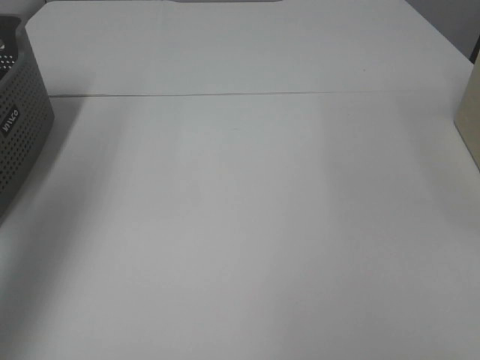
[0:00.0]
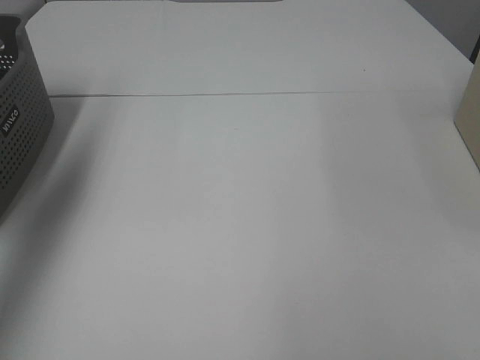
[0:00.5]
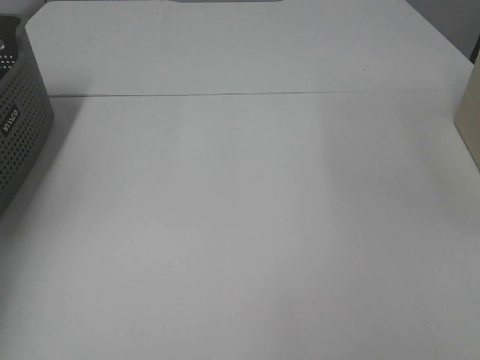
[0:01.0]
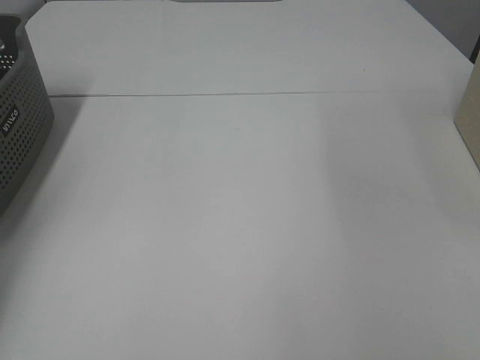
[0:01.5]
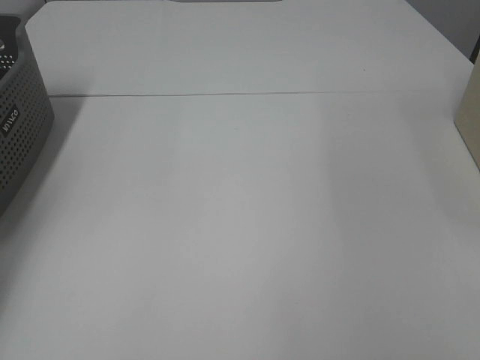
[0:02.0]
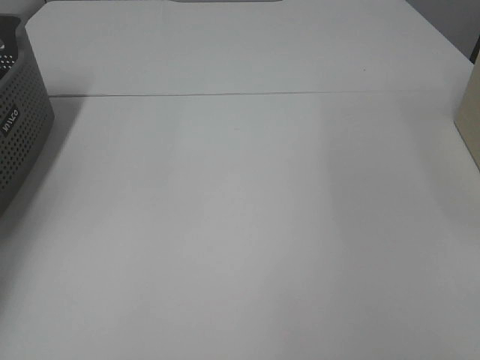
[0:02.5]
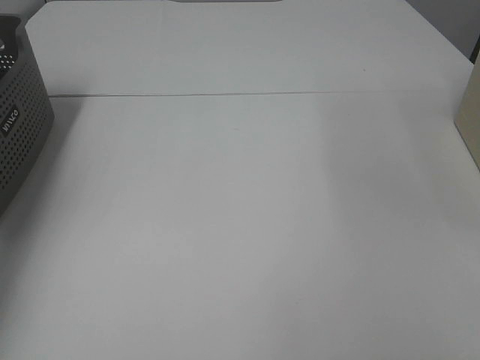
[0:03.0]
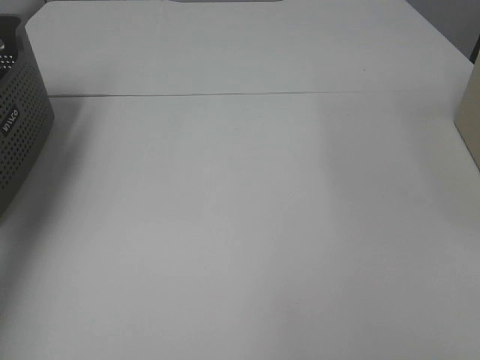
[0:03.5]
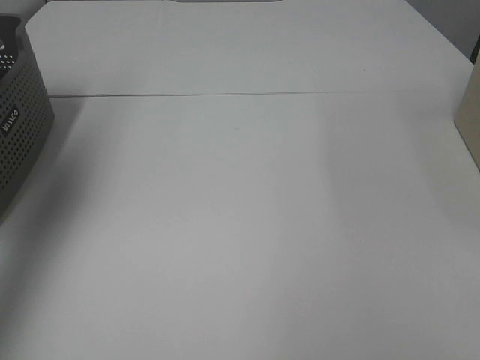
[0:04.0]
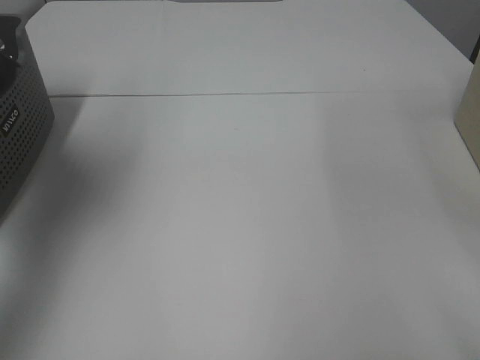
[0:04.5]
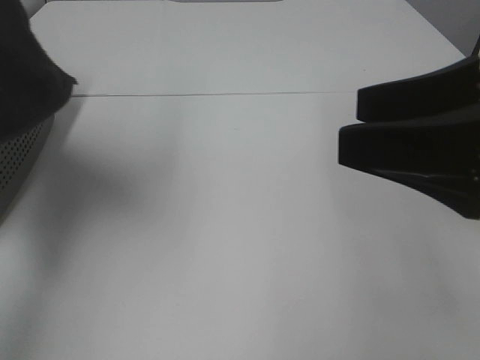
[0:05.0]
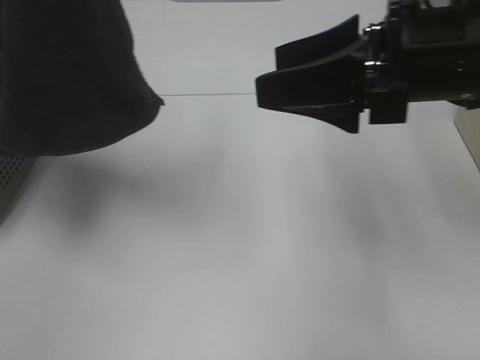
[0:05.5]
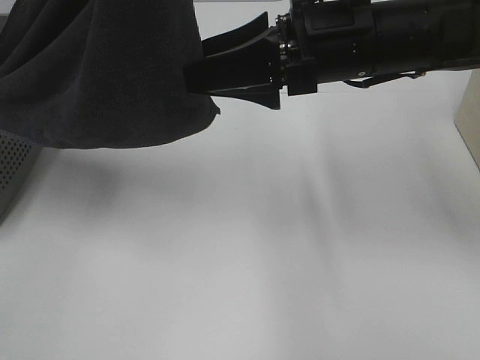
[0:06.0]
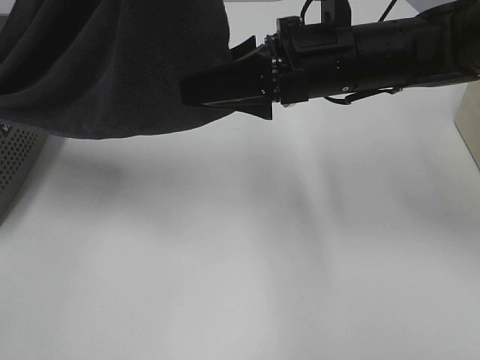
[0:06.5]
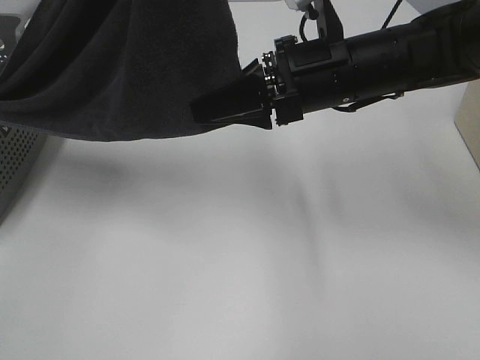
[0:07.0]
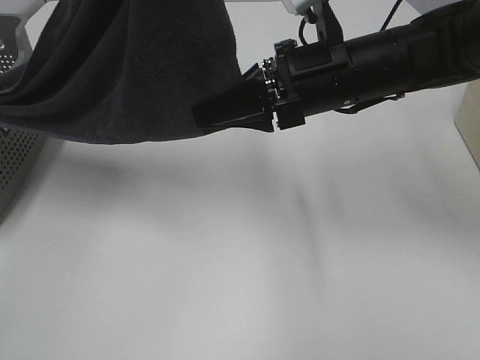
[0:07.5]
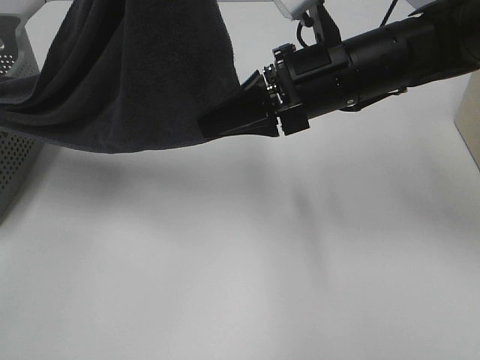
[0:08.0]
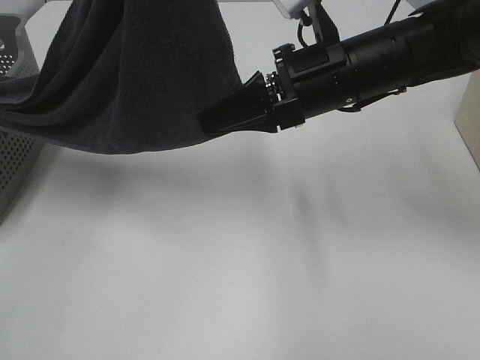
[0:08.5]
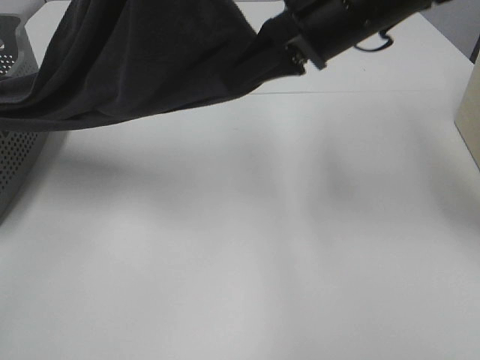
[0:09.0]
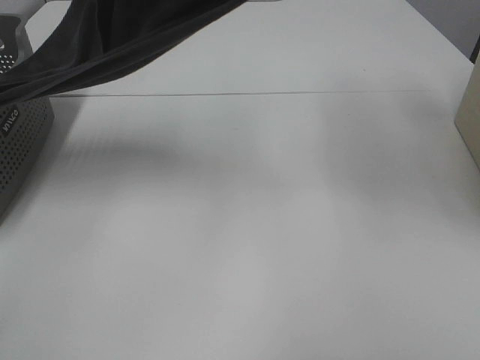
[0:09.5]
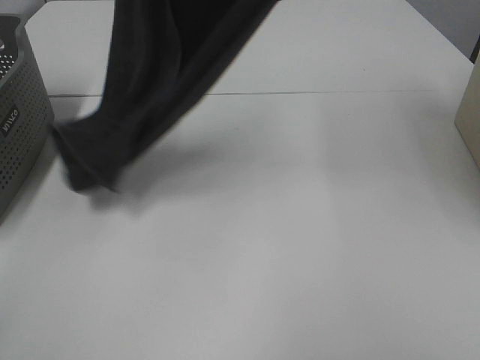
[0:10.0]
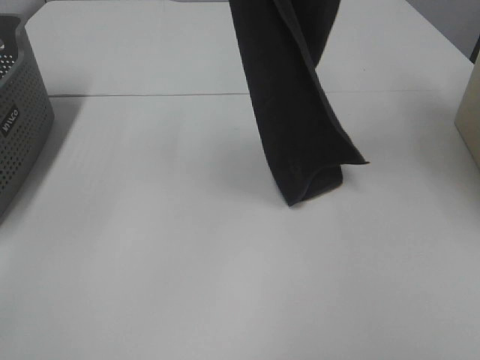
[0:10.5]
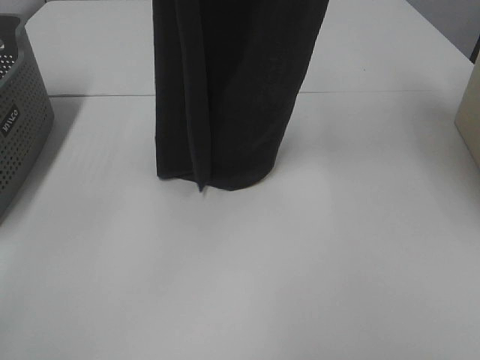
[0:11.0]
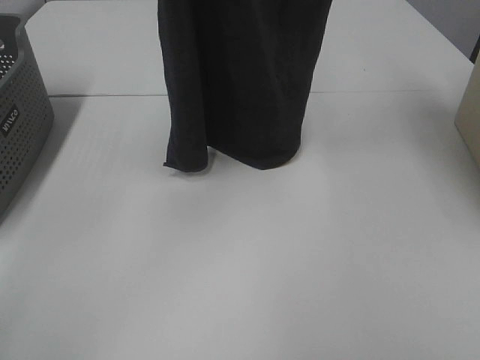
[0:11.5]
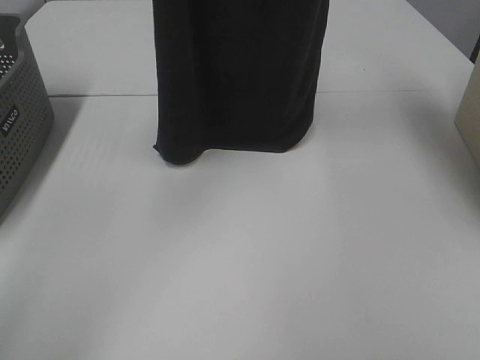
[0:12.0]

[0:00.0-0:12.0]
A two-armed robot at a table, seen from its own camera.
Task of the whole recording: Remove the towel and place it.
Step, 3.5 to 7.5 s: Right hand: grab a corner of the grey towel and straighten it.
0.0 to 2.0 s: The left gripper heads downward, forward and to the left, covering roughly 35 cm.
2.0 to 4.0 s: The left gripper goes some 35 cm upward and backward, and closes.
4.0 to 6.0 s: The left gripper moves to the right, some 20 cm; the right gripper moves forward and to the left, some 35 cm.
6.0 to 8.0 s: The right gripper closes.
8.0 to 10.0 s: The right gripper goes about 30 cm upward.
10.0 to 12.0 s: The two grippers go roughly 5 cm forward.

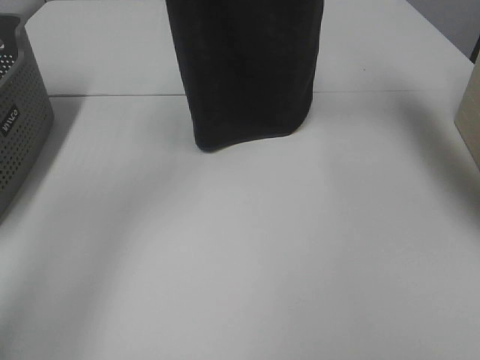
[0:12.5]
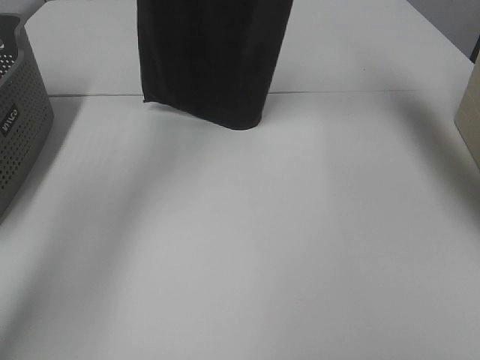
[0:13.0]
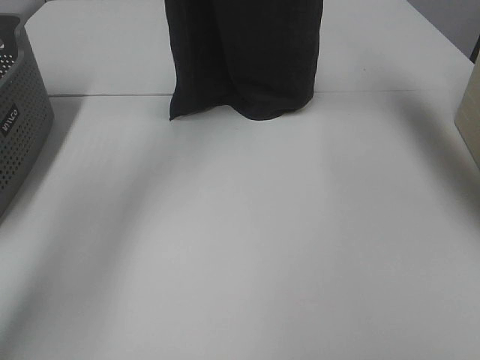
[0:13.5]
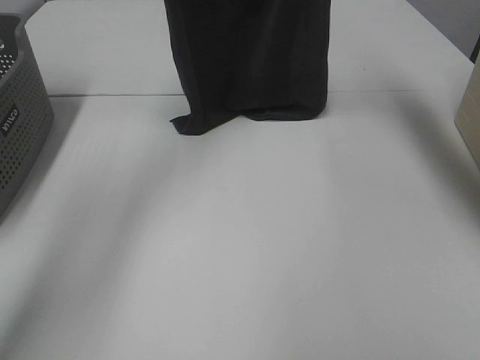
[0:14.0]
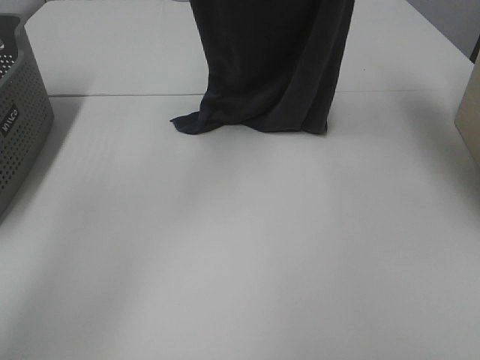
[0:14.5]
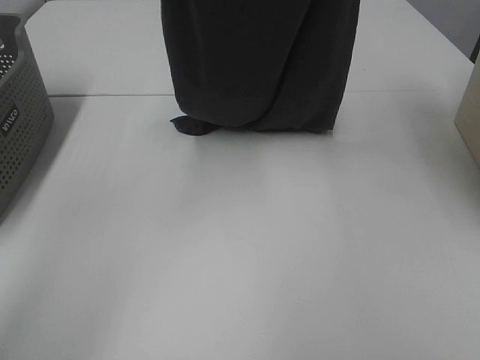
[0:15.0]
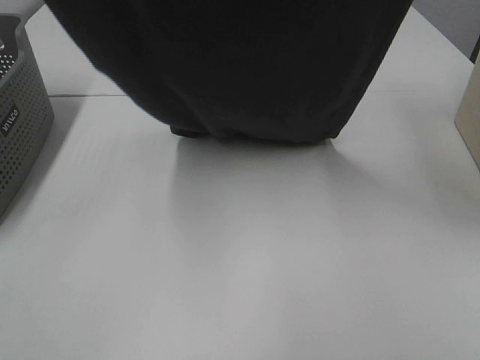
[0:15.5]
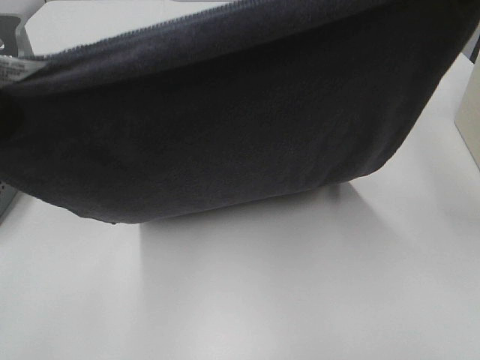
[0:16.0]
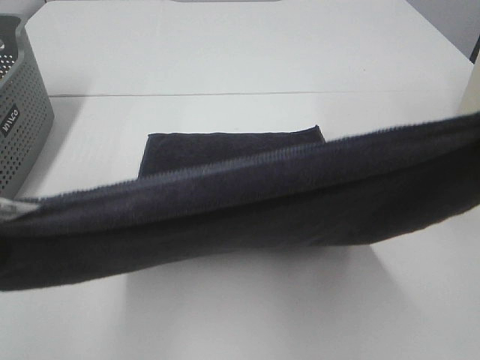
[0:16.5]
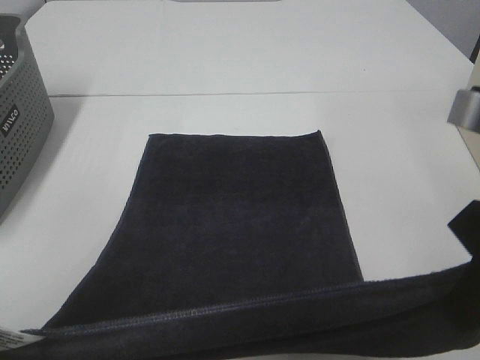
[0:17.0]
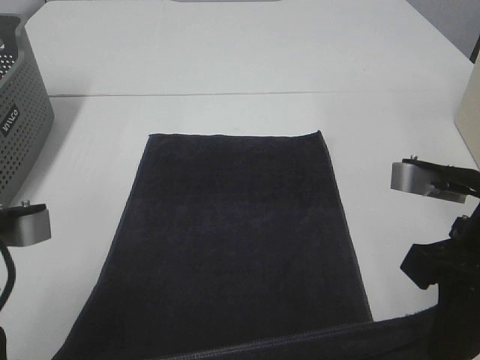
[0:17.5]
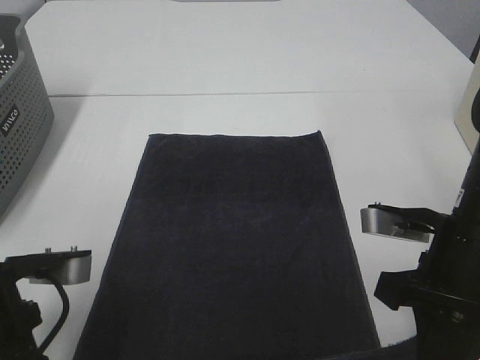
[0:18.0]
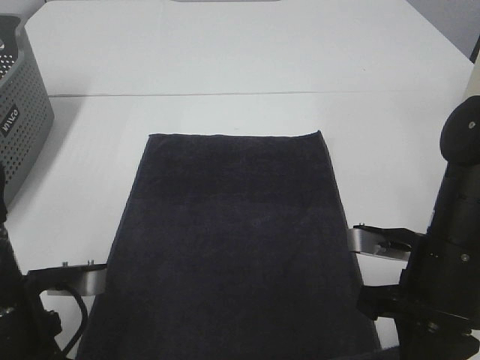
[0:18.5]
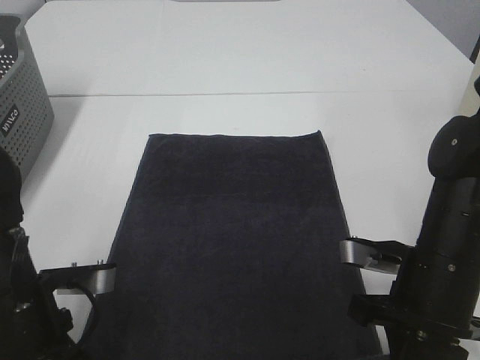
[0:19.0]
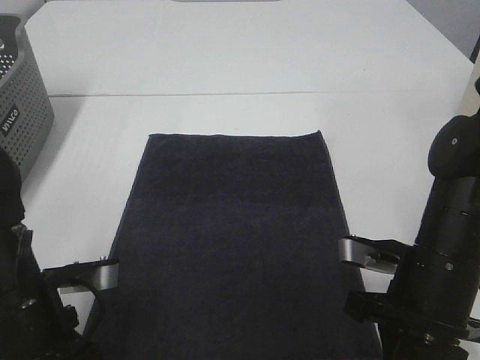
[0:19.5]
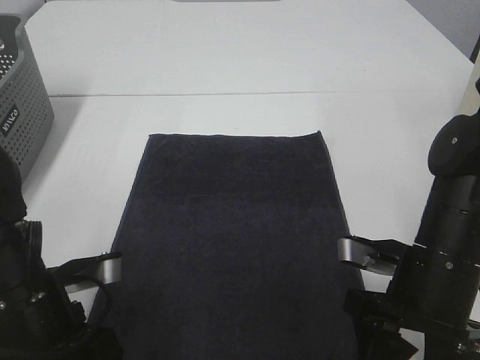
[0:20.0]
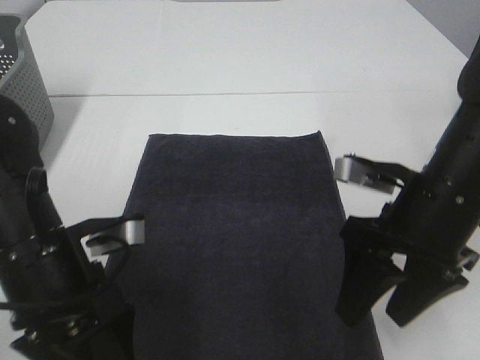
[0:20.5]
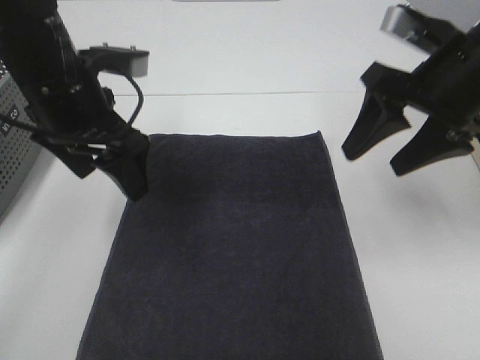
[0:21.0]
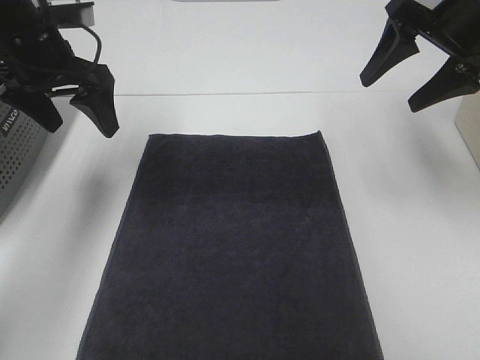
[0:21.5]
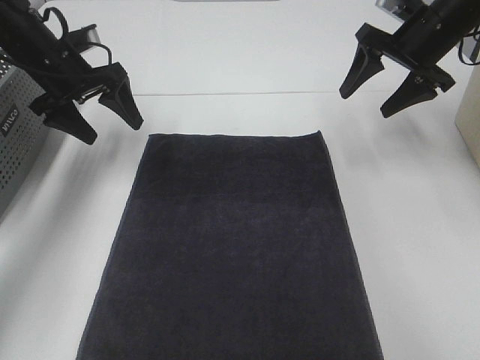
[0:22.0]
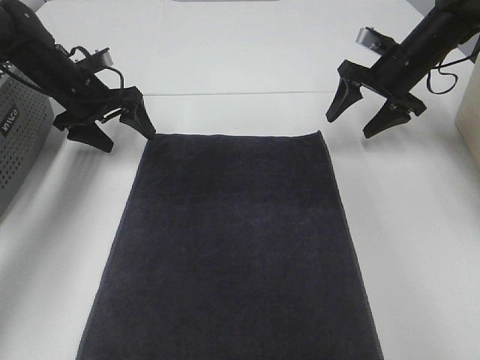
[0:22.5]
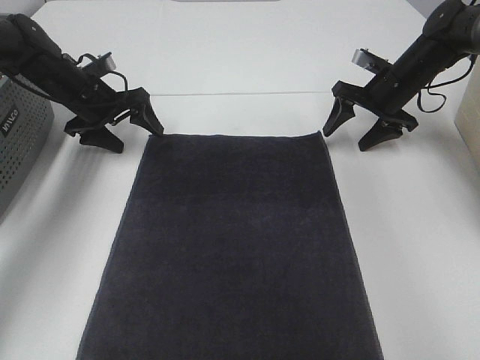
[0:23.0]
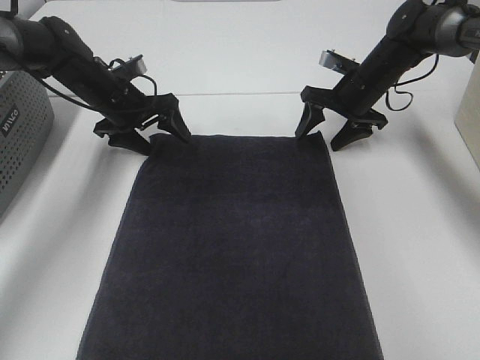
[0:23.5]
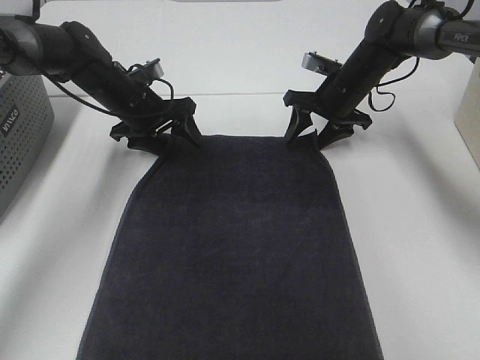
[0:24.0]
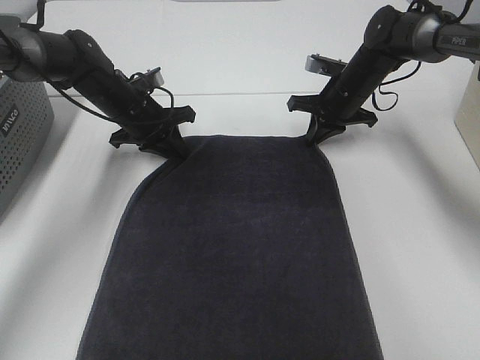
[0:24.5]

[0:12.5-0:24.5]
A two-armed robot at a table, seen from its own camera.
Task of the whole recording: Remove the towel and place it.
Step, 12.5 to 14.5 s: Left hand: spread the grey towel flat on the table.
Step, 12.5 to 14.5 s: Right hand: spread the grey towel flat on the table.
Step, 15.0 to 23.0 s: Left hand:adjust the gray towel.
Step, 15.0 to 23.0 s: Right hand:adjust the gray towel.
12.5 to 14.5 s: The right gripper changes place by some 5 cm. The left gripper moves about 5 cm.
14.5 to 16.5 s: The right gripper shifts some 30 cm backward and downward, while the left gripper travels backward by roughly 30 cm.
16.5 to 18.5 s: The two grippers go approximately 20 cm downward.
18.5 to 20.5 s: The left gripper moves roughly 5 cm, and opens, while the right gripper is displaced upward by approximately 5 cm, and opens.
20.5 to 22.5 s: The two grippers go about 30 cm forward.
22.5 to 24.5 s: The right gripper heads to the left and downward, covering some 10 cm, and closes its fingers, while the left gripper is displaced to the right by about 5 cm, and closes its fingers.

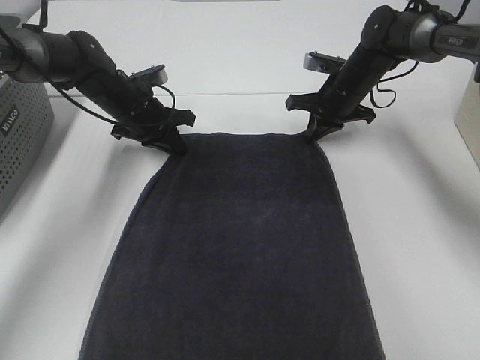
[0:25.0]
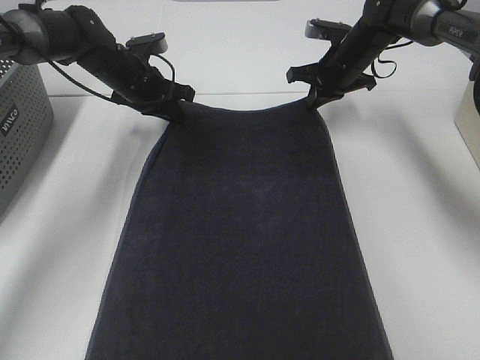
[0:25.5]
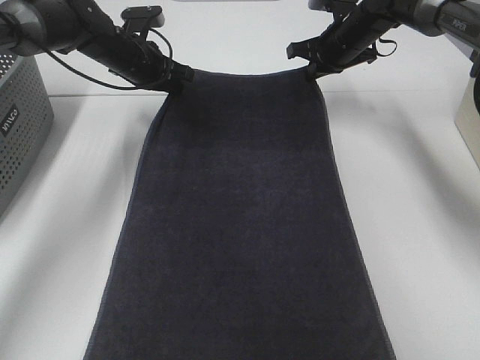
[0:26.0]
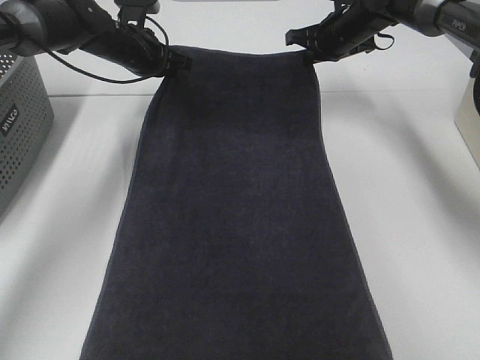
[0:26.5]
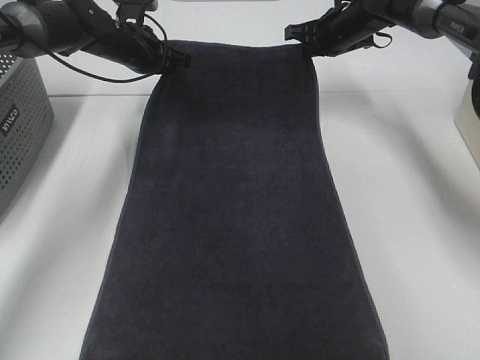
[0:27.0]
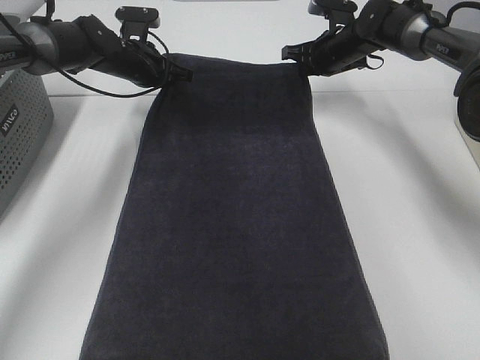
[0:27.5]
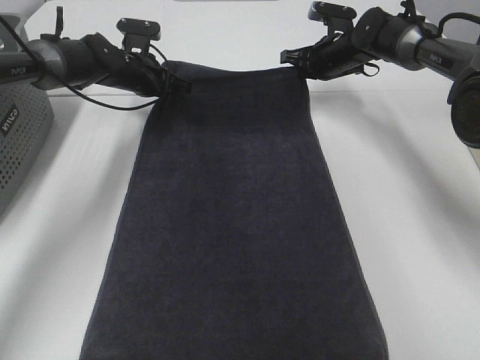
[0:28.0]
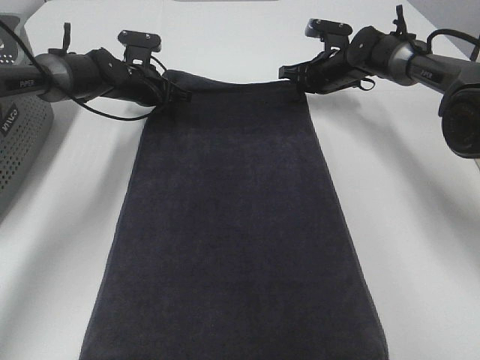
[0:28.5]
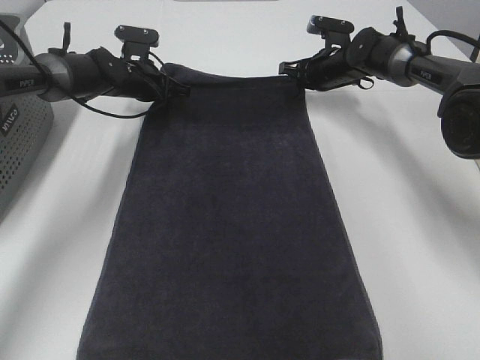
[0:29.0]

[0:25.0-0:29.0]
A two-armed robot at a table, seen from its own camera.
Task of the whole recording: Remove the towel and place it.
25.0 to 27.0 s: Both grippers move upward and forward, some 10 cm.
27.0 to 29.0 s: The two grippers go some 5 cm downward.
